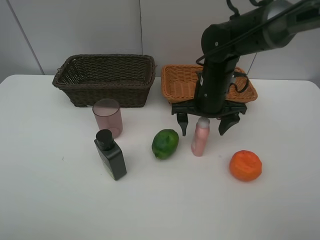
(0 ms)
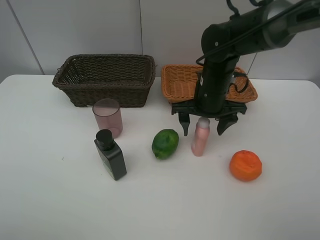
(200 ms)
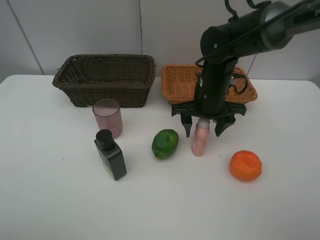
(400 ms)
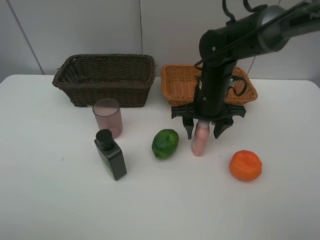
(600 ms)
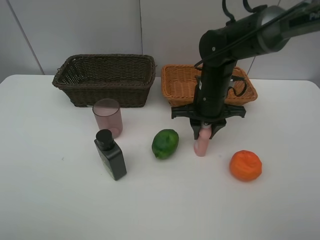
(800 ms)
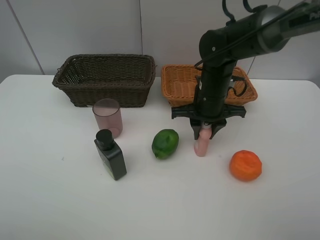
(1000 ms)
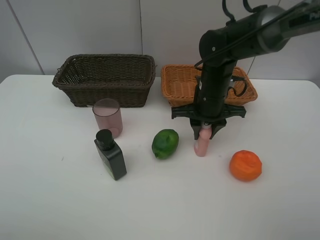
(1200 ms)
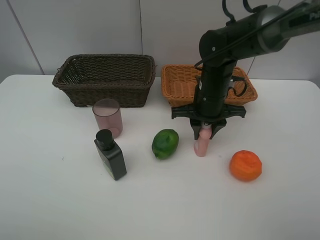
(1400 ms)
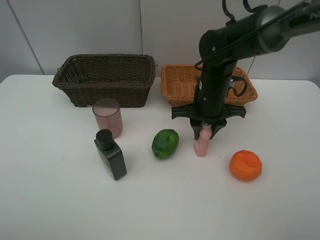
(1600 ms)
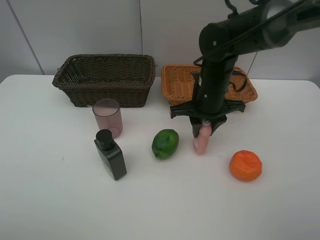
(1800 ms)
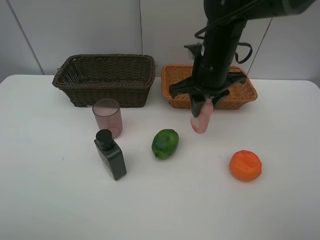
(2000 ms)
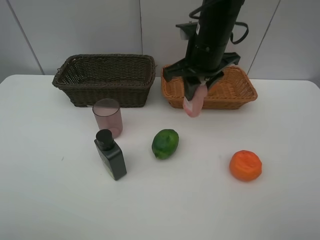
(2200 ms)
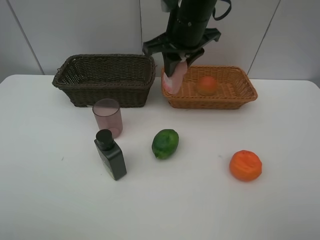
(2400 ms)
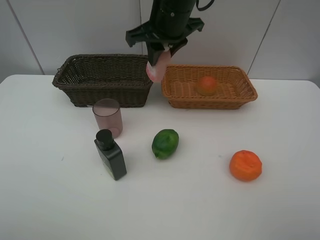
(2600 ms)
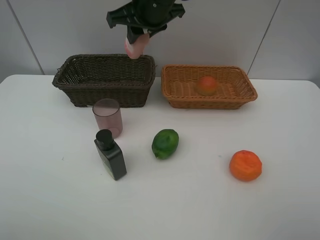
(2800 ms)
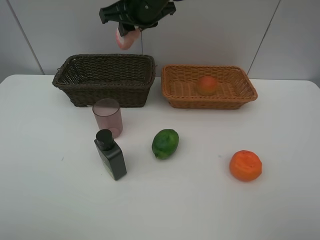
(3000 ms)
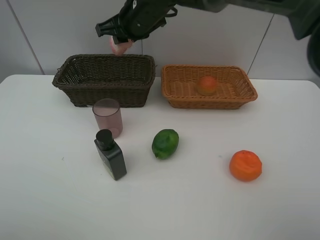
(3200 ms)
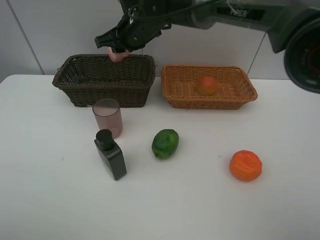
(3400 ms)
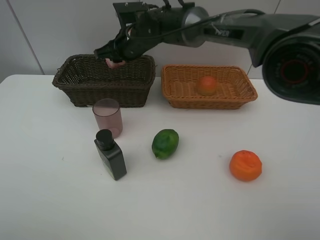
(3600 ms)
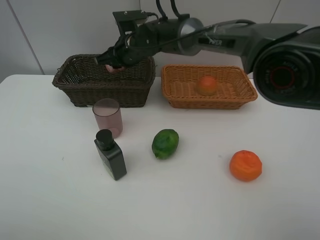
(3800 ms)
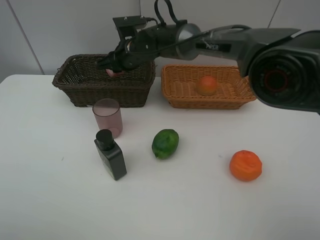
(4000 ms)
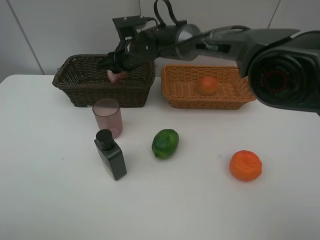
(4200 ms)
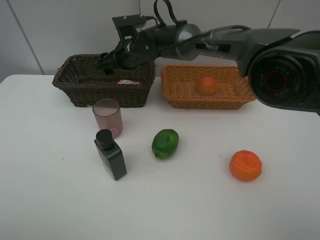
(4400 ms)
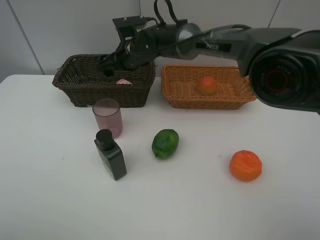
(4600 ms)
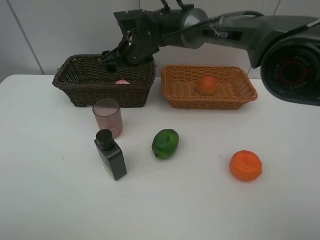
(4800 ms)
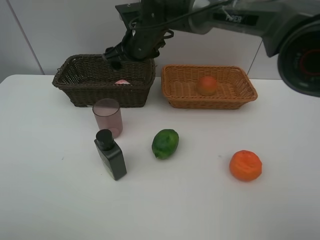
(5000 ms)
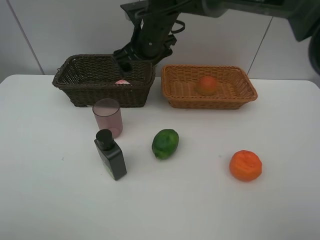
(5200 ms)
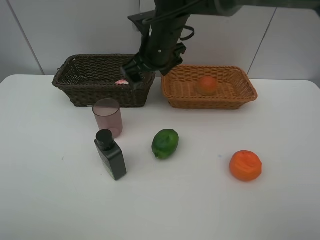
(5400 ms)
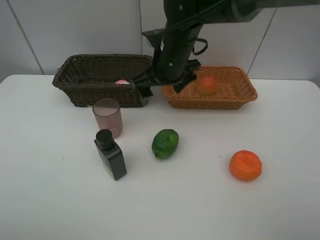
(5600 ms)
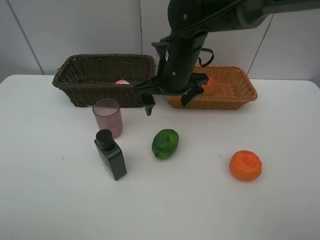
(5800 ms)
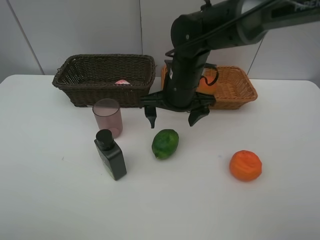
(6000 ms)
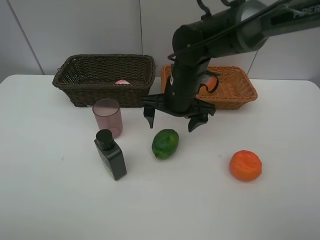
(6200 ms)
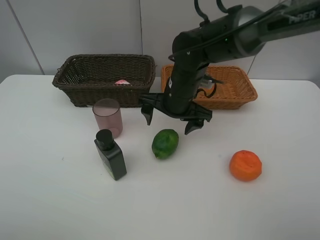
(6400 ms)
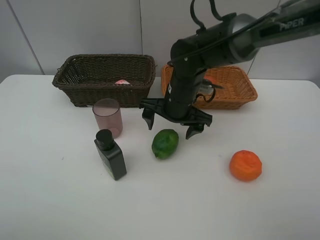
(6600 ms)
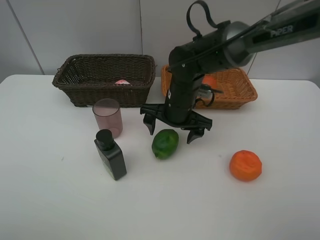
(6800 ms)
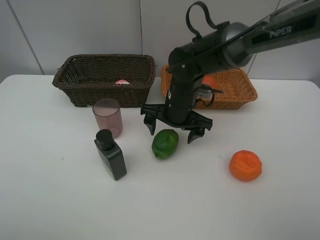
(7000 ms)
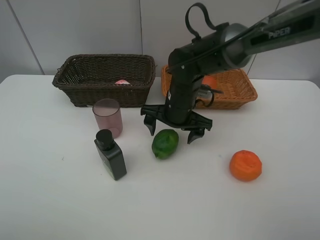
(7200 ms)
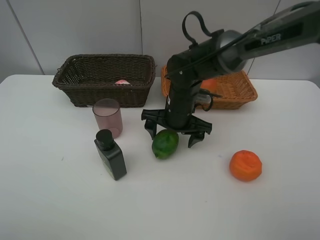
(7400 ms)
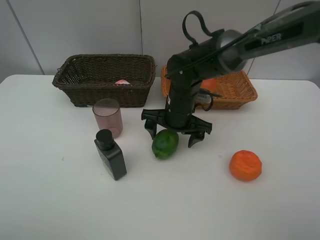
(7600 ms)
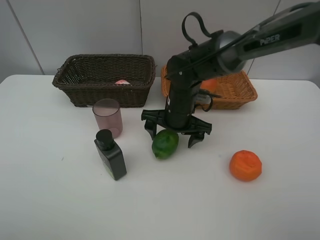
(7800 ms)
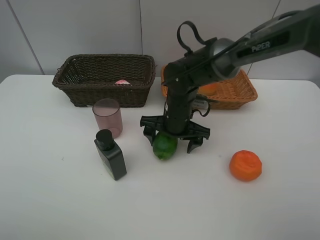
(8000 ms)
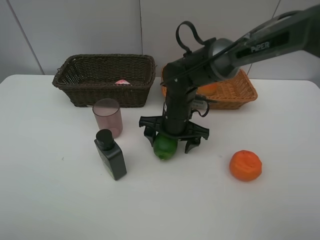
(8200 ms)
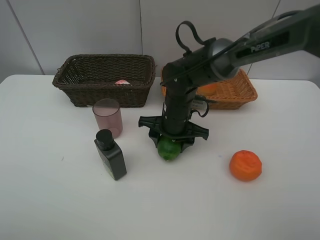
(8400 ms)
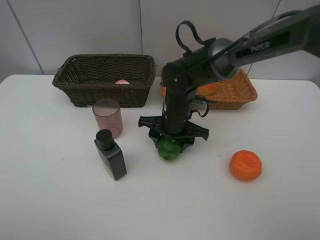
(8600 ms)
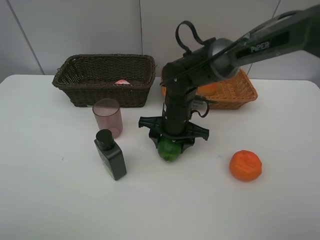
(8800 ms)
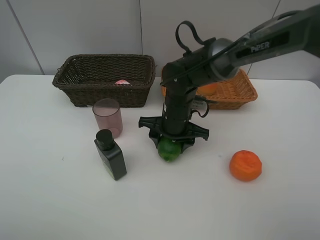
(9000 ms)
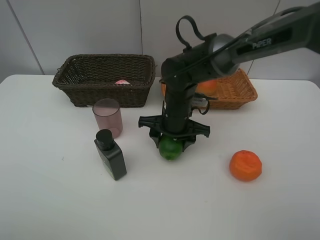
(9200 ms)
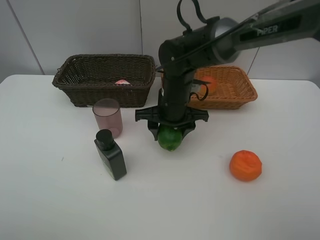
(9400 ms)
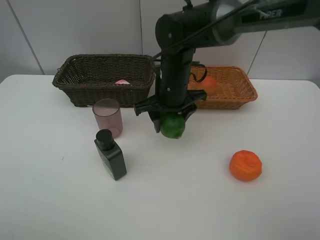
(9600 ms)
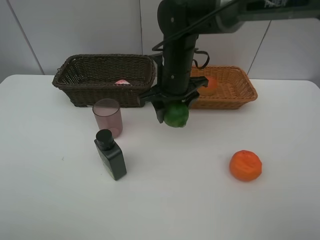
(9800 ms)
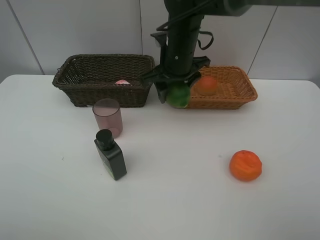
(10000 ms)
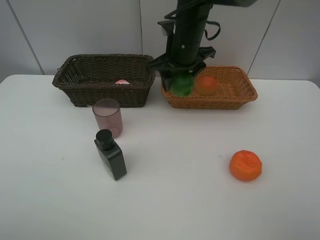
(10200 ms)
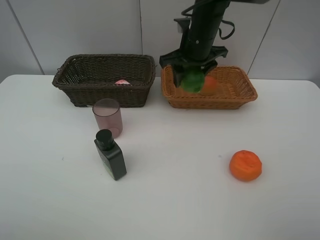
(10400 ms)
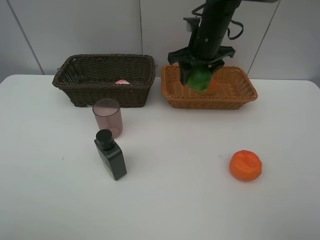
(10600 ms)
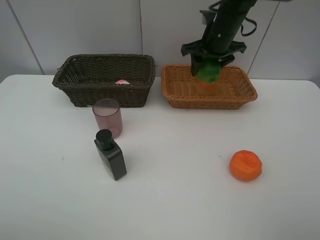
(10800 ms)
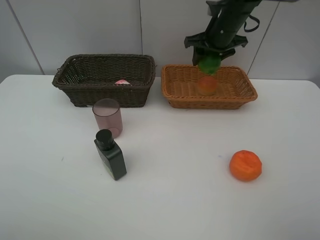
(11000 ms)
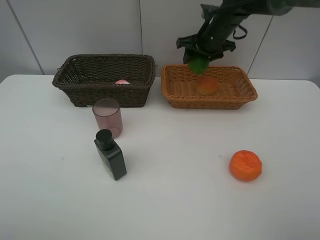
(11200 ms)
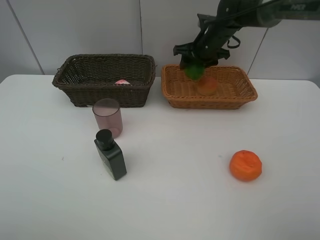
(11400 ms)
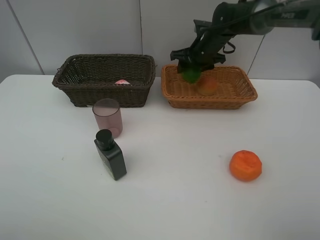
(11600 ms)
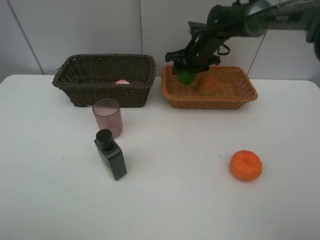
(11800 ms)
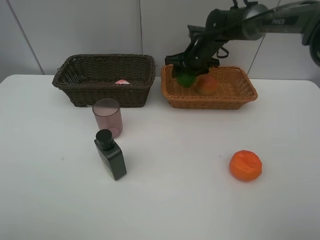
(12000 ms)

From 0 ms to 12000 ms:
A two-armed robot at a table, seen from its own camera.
Task of the whole recording: place multiple objects separately in different baskets.
Step, from 5200 ms to 9400 ms: Pick up the lime with right gripper.
From 0 ms to 1600 ms: The right gripper closes up.
From 1600 ms to 3000 ms: The right gripper shifts some 20 cm upward, to the left and forward.
From 3000 ms to 4400 ms: The right gripper travels downward by about 15 cm, and opens.
From 4400 ms to 6000 ms: The right gripper shifts approximately 15 cm backward and to the right.
From 6000 ms to 7600 ms: The right gripper goes approximately 5 cm downward.
From 7600 ms to 9000 ms: The right gripper closes.
From 9000 ms to 10400 ms: The right gripper is displaced upward and forward by about 15 cm.
From 10400 ms to 12000 ms: The right gripper shifts approximately 10 cm forward and downward.

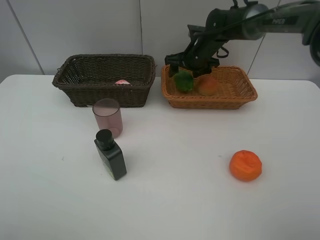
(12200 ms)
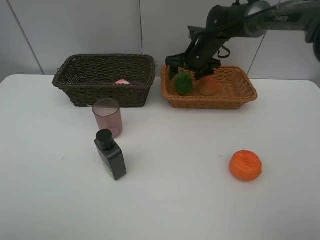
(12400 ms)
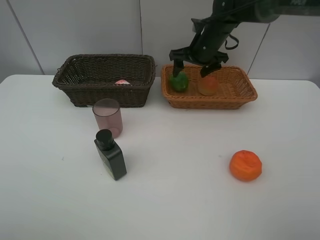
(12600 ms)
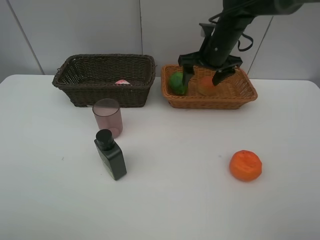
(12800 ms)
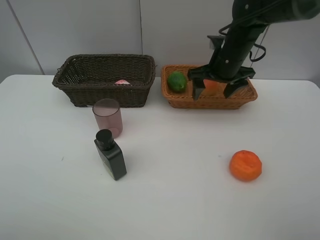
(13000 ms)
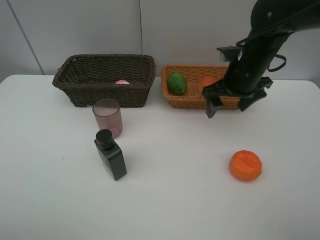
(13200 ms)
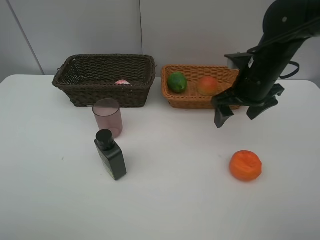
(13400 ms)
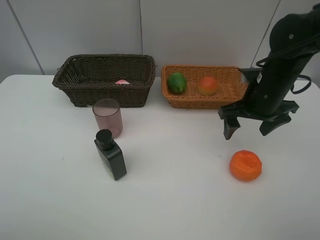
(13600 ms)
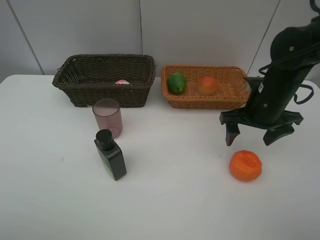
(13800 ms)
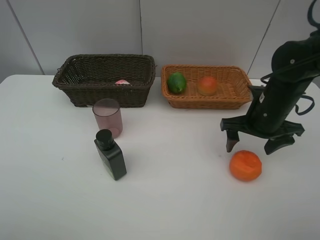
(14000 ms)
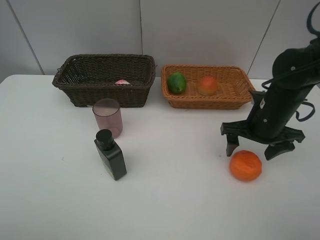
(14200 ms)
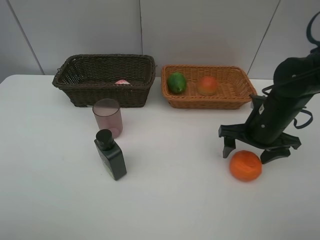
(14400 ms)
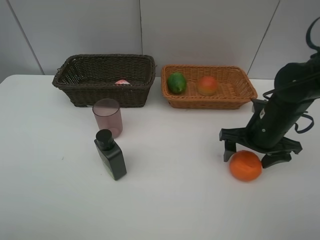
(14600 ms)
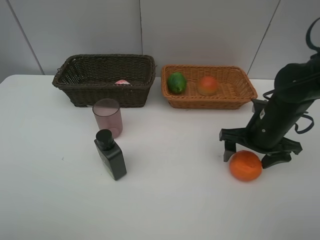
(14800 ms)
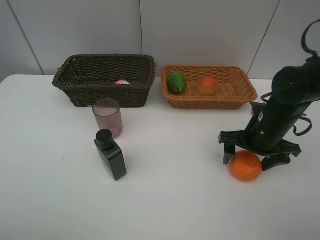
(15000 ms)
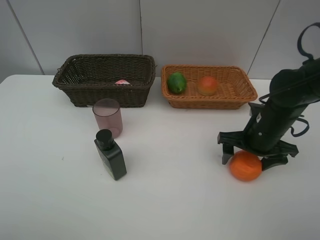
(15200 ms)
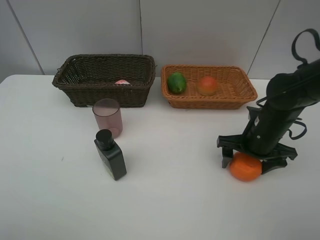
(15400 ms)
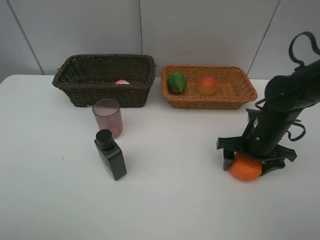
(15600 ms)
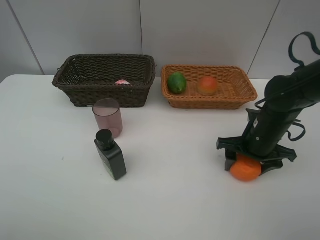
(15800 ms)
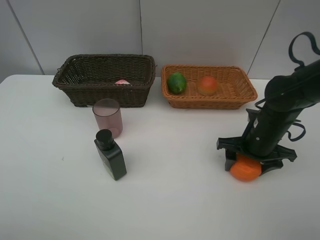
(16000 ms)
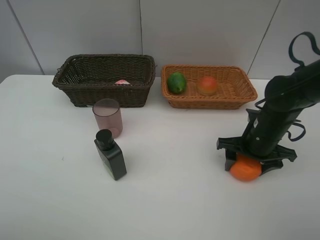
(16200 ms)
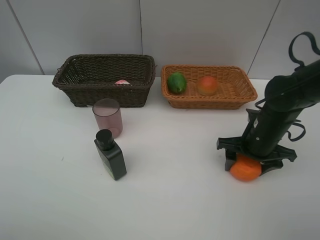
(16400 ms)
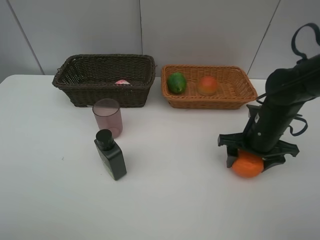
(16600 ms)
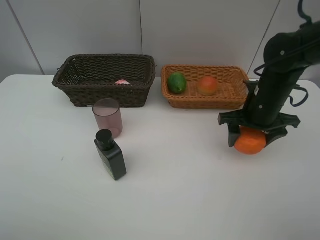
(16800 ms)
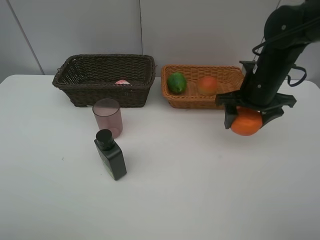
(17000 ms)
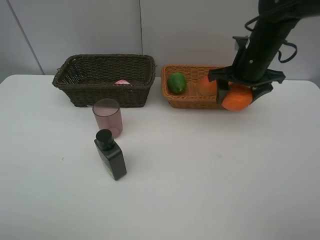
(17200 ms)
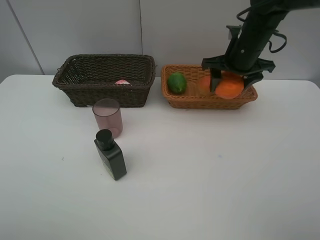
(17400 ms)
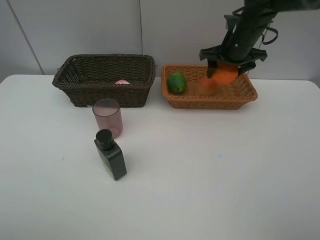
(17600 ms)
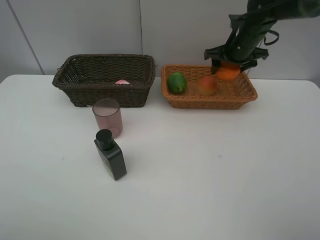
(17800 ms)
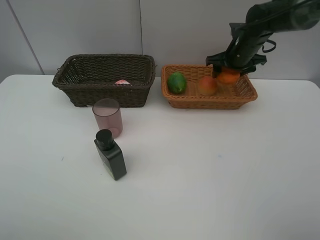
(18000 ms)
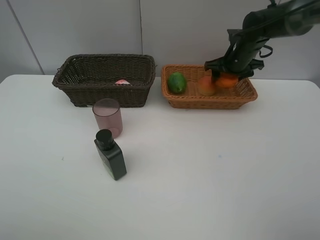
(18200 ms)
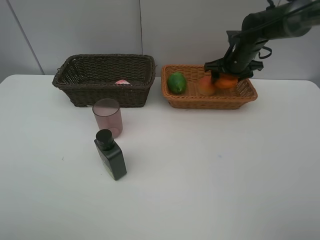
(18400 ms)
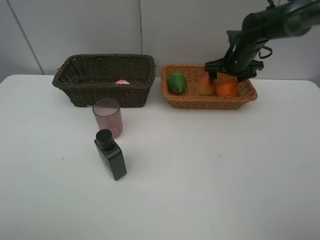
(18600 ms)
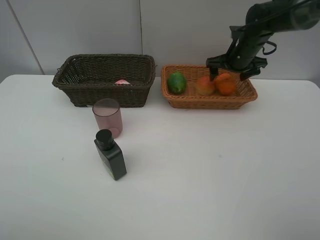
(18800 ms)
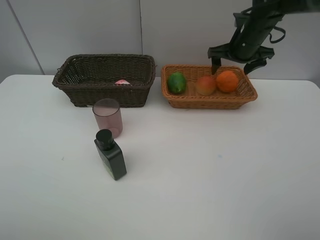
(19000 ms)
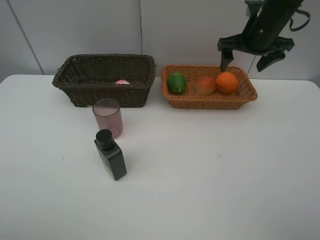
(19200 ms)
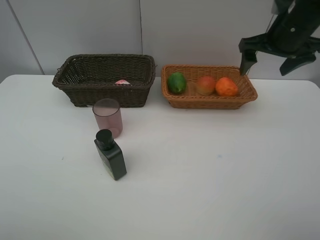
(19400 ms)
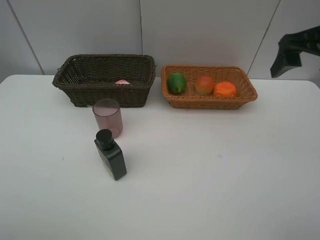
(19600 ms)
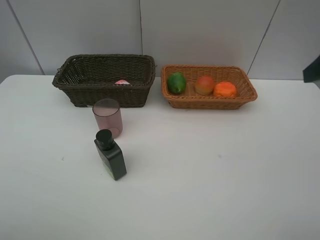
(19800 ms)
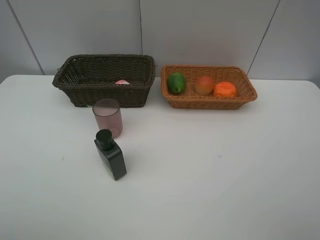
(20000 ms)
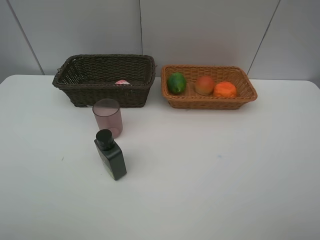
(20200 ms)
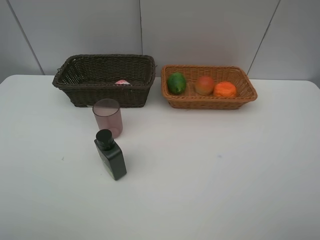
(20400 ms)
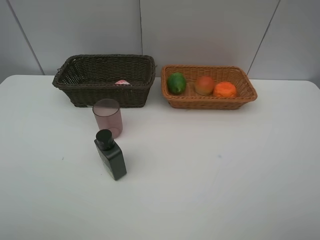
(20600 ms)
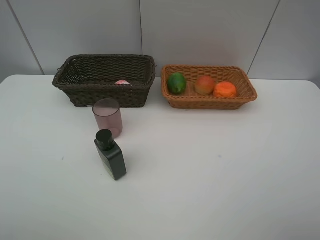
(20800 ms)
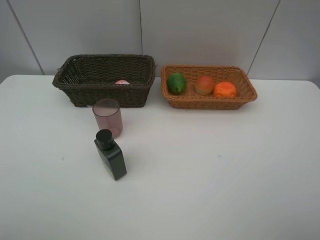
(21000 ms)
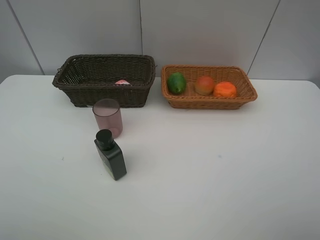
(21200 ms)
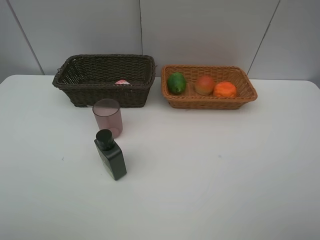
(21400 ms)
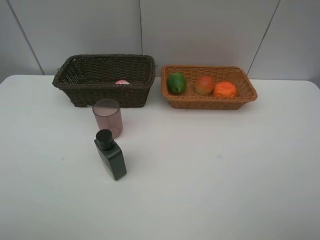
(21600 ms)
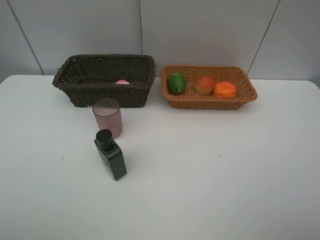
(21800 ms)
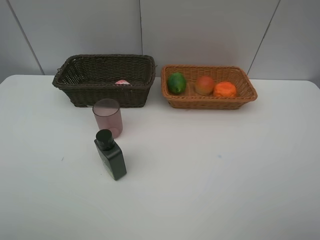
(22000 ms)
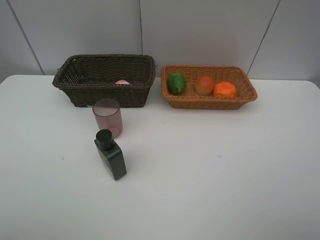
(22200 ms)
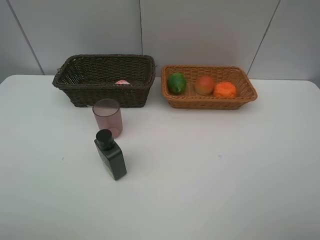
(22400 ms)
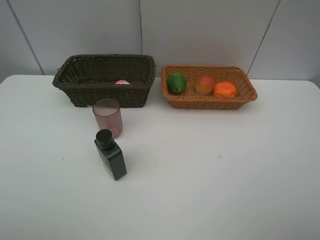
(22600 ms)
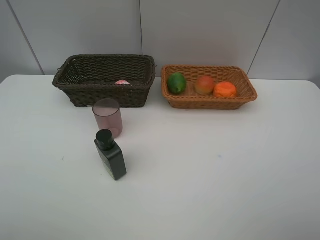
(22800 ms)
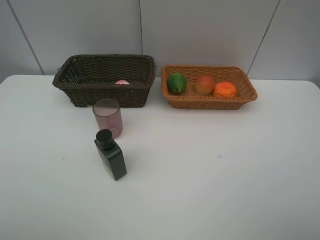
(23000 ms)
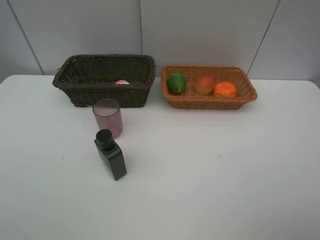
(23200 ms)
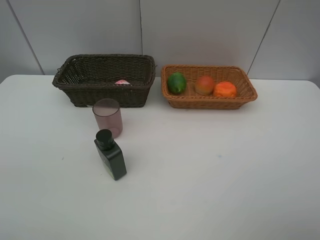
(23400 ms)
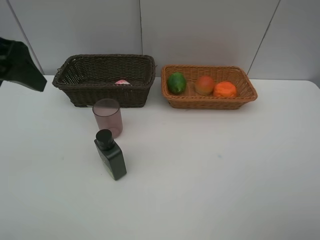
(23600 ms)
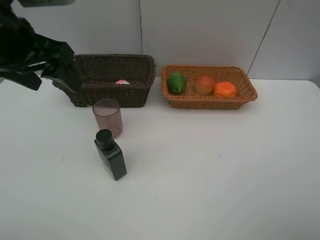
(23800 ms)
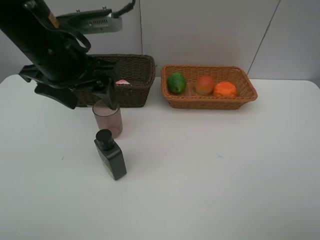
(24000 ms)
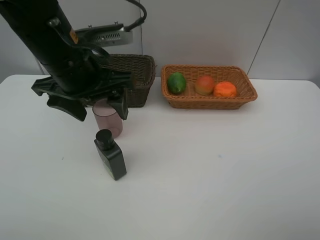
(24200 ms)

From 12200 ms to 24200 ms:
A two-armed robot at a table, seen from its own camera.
Task of the whole recording: place multiple objects separately in different baskets.
Step, from 13200 ms to 16600 ms: Pick up the orange with right gripper.
Step, from 16800 ms to 19000 ms: Place the orange in the light basket with right gripper.
From 12200 ms to 13800 ms: The right gripper goes some 20 cm backward and to the right.
From 13800 ms to 15200 ms: The right gripper travels downward by about 5 cm.
From 15200 ms to 16600 ms: Neither gripper changes place.
From 16600 ms to 18200 ms: The right gripper is displaced forward by approximately 20 cm.
From 18200 ms to 19800 ms: The right gripper is displaced backward and upward by roughly 35 cm, and opens.
From 22600 ms to 24200 ms: The left gripper goes about 30 cm forward and to the right.
